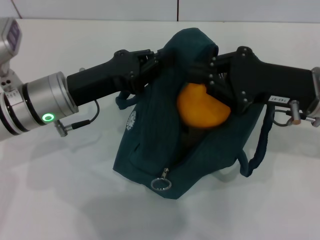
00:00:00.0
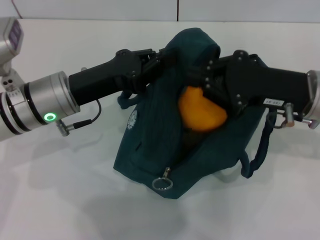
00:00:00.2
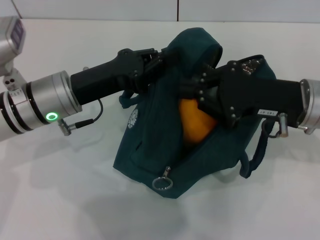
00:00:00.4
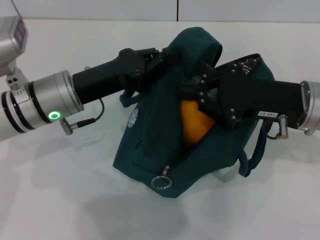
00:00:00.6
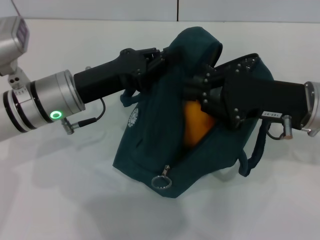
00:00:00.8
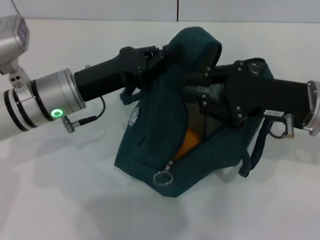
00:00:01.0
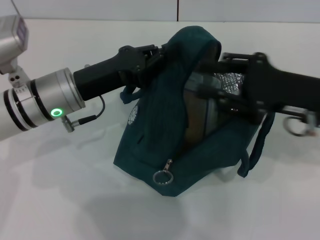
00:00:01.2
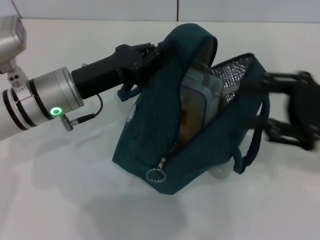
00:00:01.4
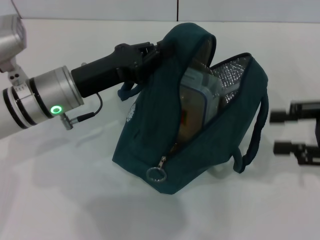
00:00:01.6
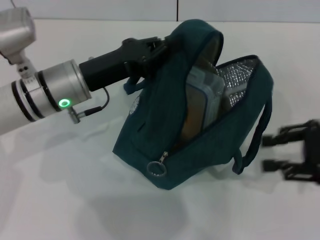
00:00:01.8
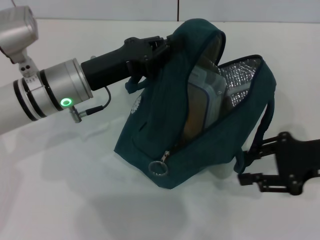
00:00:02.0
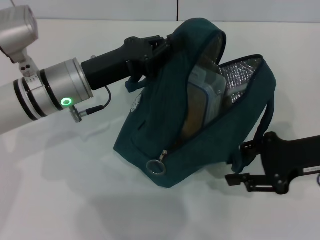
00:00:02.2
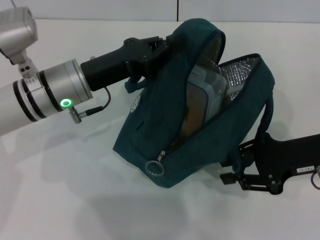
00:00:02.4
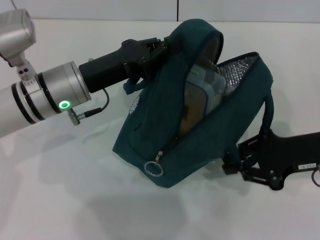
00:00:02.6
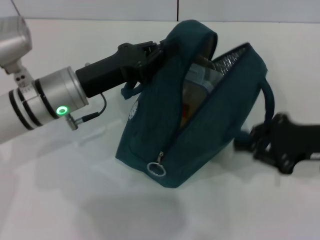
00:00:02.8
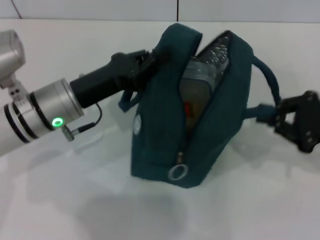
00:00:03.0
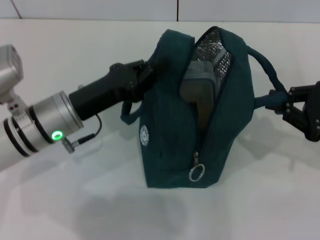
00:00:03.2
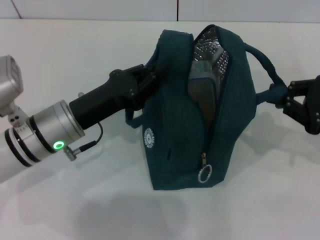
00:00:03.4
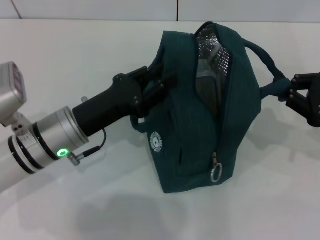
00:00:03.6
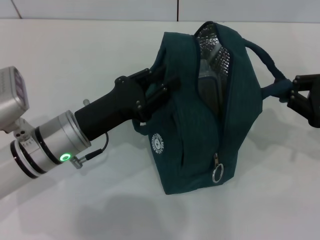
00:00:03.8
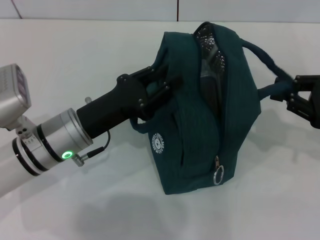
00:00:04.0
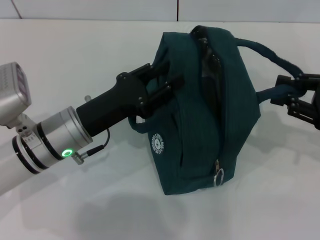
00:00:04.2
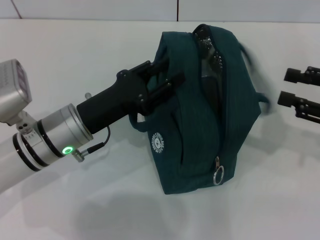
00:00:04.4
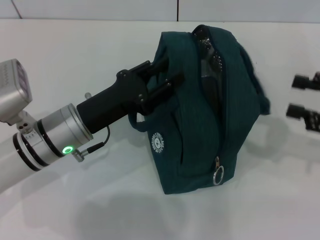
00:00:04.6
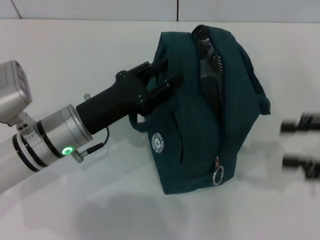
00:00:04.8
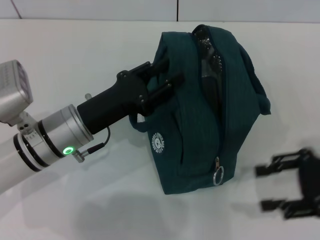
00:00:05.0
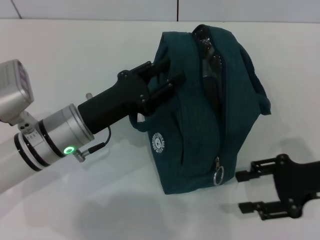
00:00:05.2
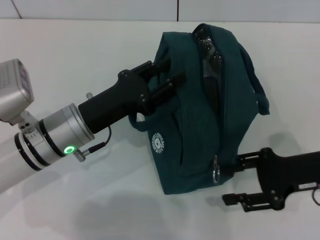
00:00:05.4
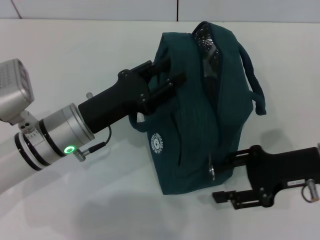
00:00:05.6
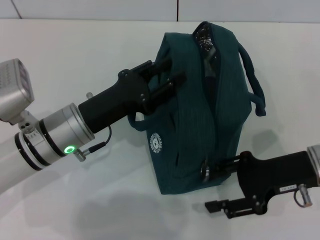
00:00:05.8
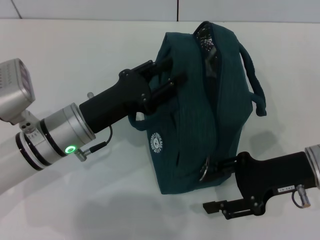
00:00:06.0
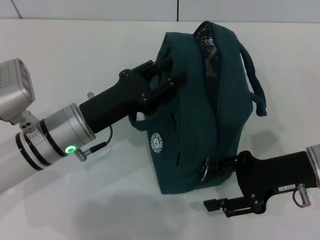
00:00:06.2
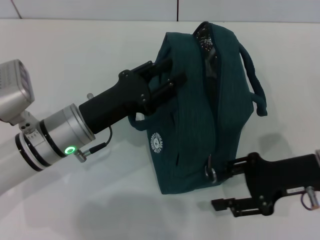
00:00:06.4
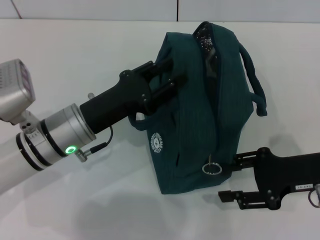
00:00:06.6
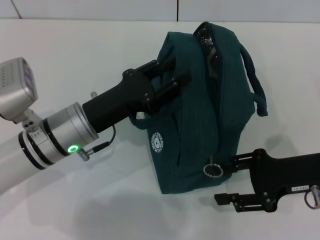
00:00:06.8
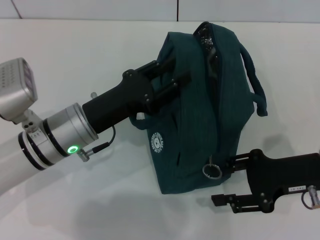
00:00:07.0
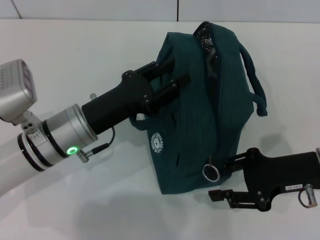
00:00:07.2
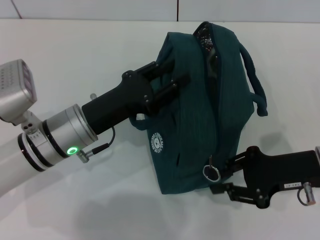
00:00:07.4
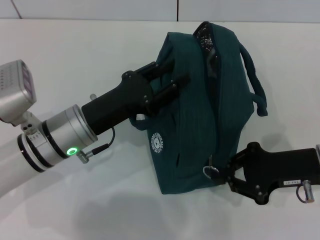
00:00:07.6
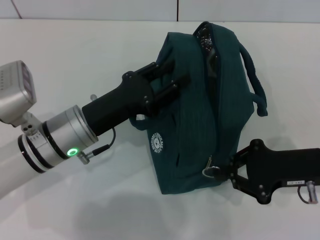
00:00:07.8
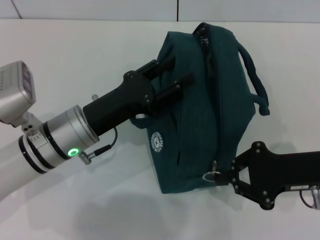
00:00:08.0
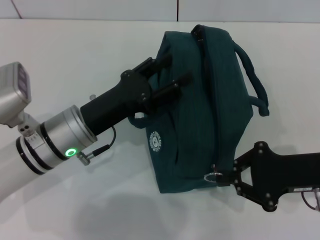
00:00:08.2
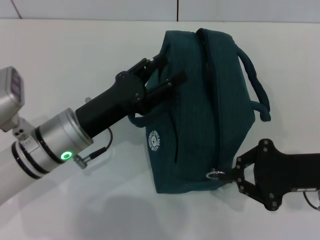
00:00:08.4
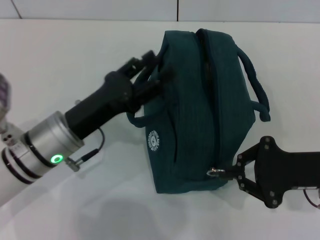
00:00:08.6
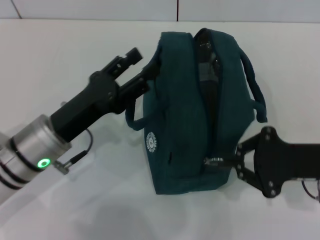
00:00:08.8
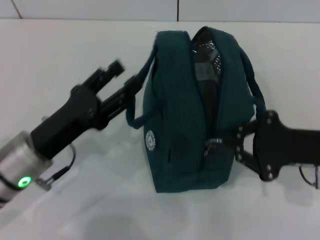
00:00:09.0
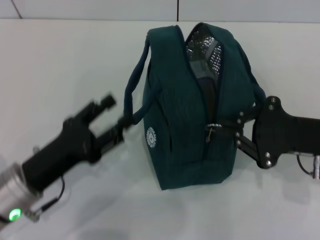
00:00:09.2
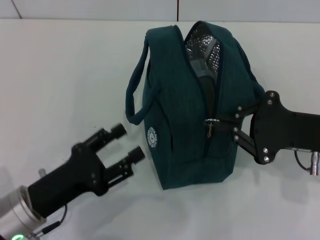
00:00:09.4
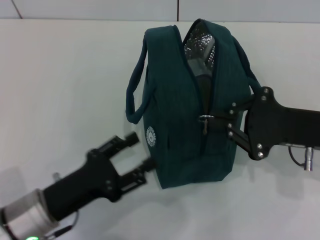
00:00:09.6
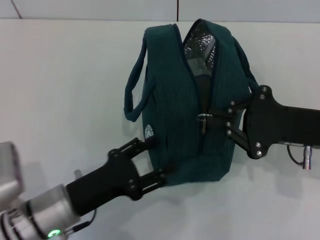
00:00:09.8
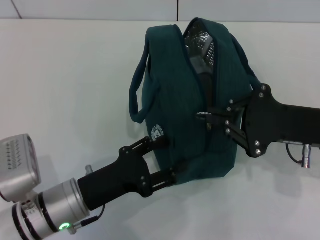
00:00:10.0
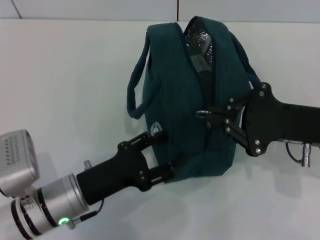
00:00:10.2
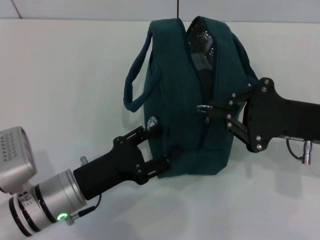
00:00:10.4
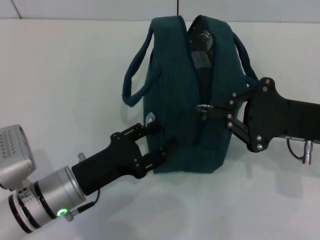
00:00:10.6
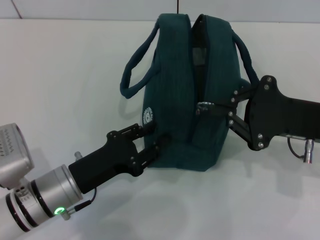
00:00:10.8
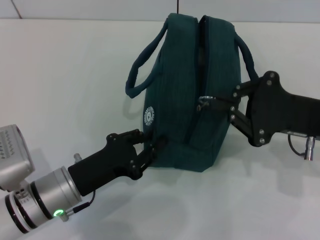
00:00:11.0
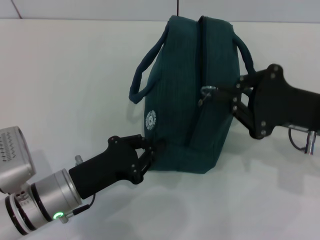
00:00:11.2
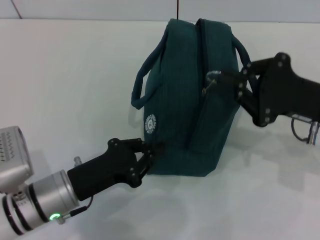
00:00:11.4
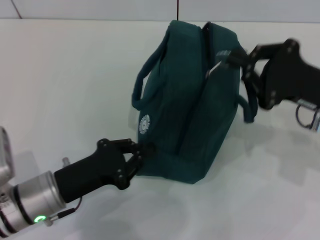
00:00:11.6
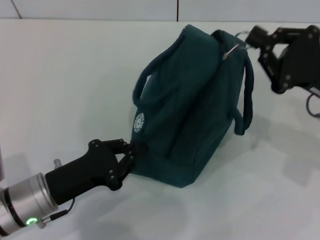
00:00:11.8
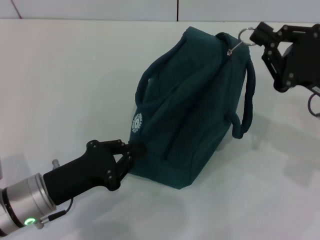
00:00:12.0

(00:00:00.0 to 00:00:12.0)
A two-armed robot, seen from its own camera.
Step, 00:00:01.4 - 00:00:04.2: Hold the lunch bag with your right hand.
00:00:00.0 - 00:00:01.6: The right gripper shifts some 10 cm to the right, and opens up.
00:00:01.6 - 00:00:03.0: The right gripper closes its fingers.
00:00:04.4 - 00:00:06.0: The right gripper shifts about 10 cm to the left.
00:00:06.0 - 00:00:07.6: The grippers stay close to where they were, moving slightly.
00:00:07.6 - 00:00:09.0: The left gripper changes place by roughly 5 cm. The right gripper closes.
00:00:09.0 - 00:00:10.4: The left gripper shifts by some 5 cm.
00:00:10.4 - 00:00:12.0: The left gripper closes its fingers.

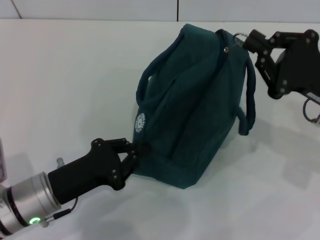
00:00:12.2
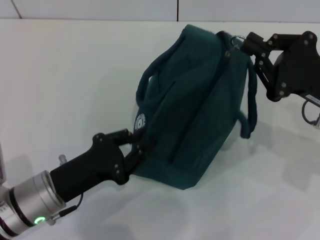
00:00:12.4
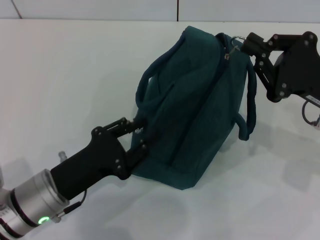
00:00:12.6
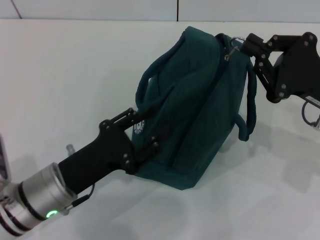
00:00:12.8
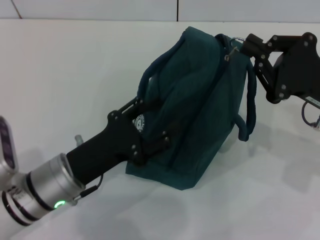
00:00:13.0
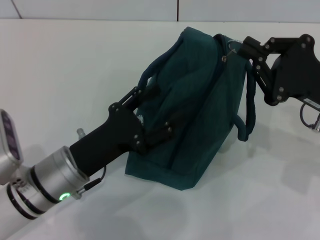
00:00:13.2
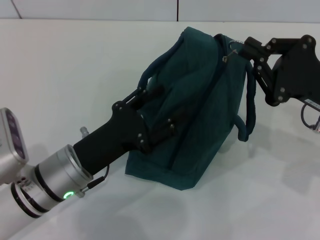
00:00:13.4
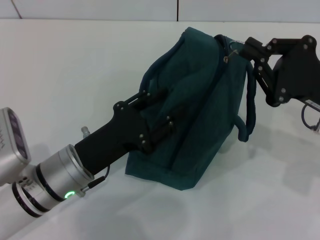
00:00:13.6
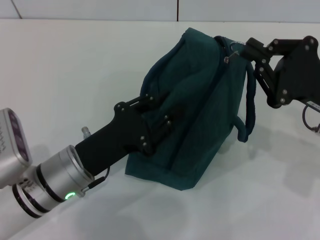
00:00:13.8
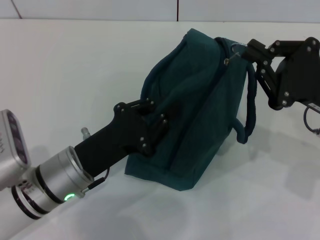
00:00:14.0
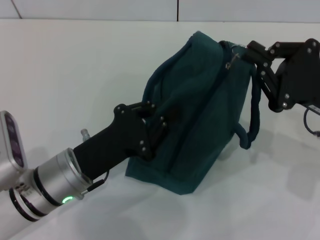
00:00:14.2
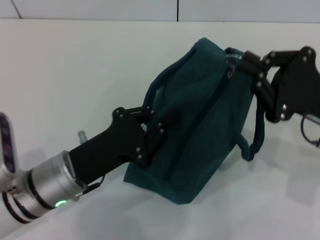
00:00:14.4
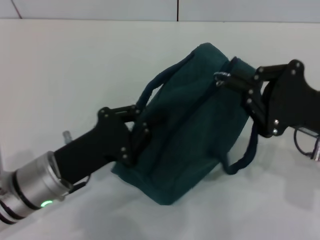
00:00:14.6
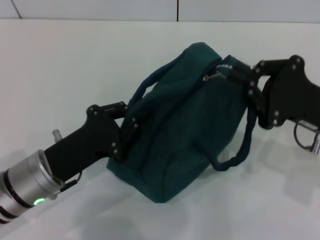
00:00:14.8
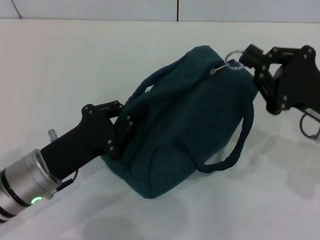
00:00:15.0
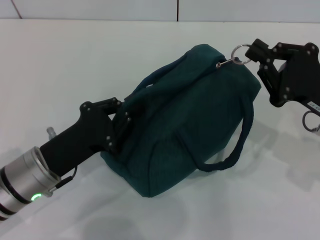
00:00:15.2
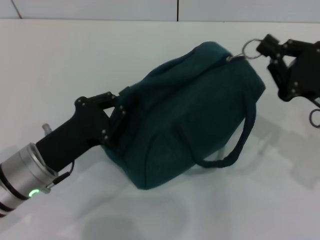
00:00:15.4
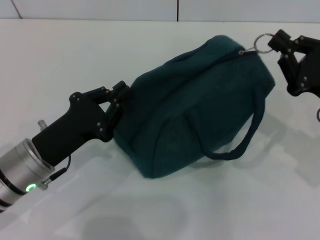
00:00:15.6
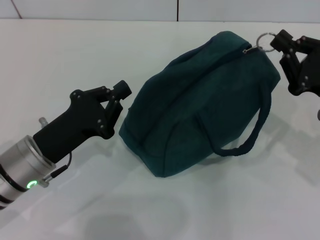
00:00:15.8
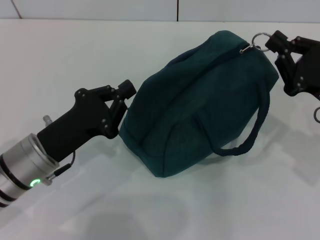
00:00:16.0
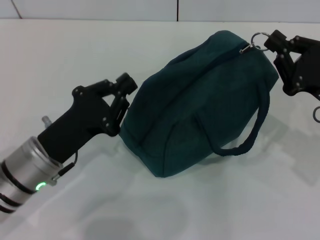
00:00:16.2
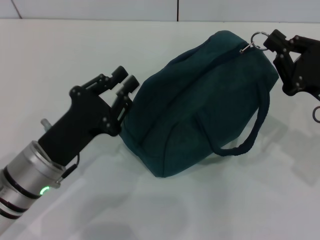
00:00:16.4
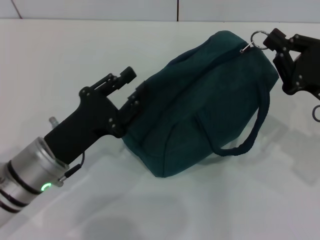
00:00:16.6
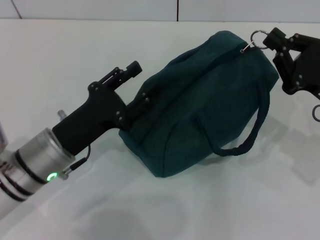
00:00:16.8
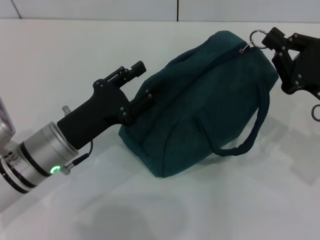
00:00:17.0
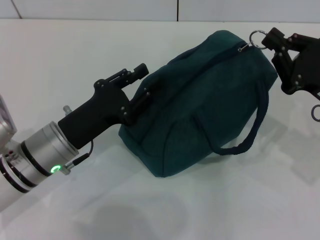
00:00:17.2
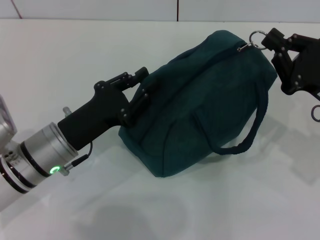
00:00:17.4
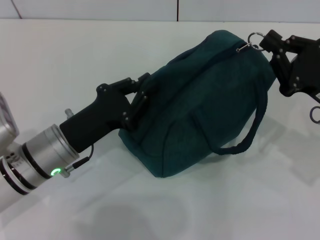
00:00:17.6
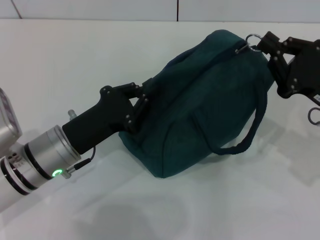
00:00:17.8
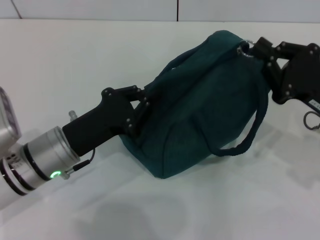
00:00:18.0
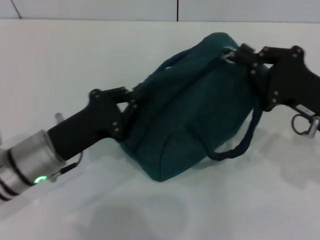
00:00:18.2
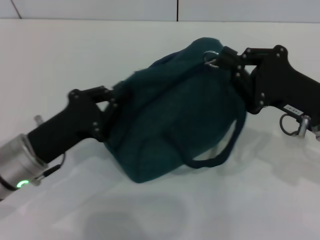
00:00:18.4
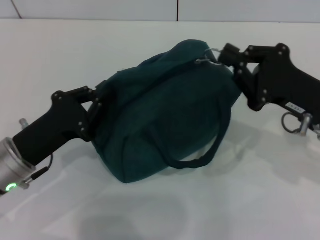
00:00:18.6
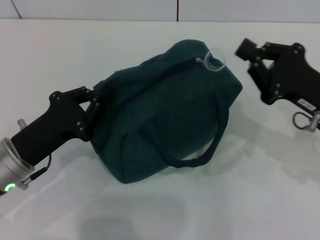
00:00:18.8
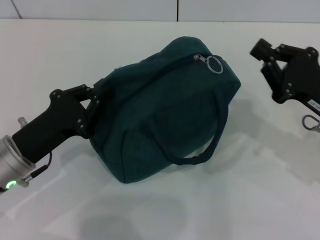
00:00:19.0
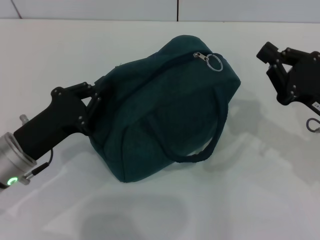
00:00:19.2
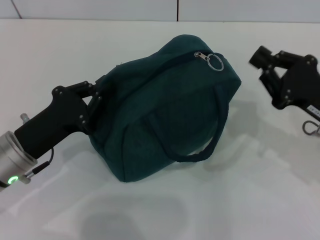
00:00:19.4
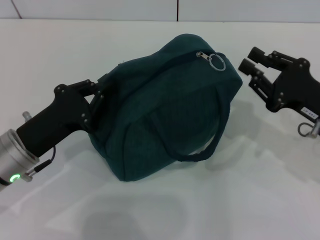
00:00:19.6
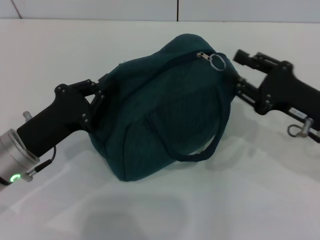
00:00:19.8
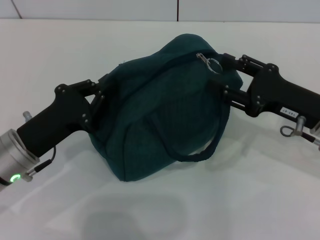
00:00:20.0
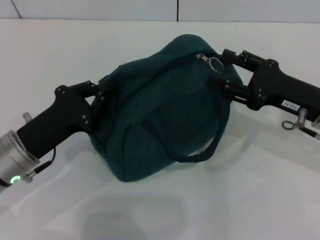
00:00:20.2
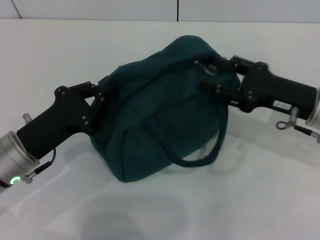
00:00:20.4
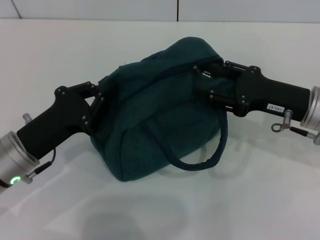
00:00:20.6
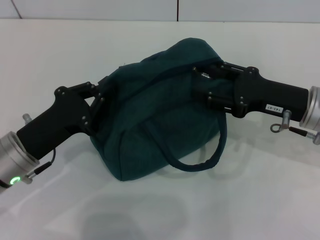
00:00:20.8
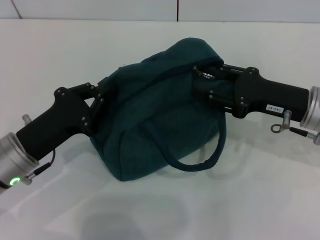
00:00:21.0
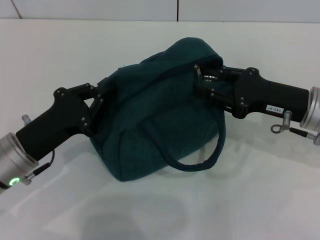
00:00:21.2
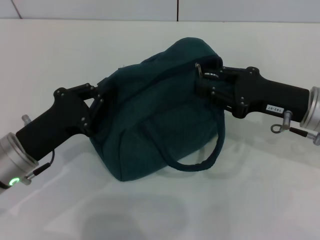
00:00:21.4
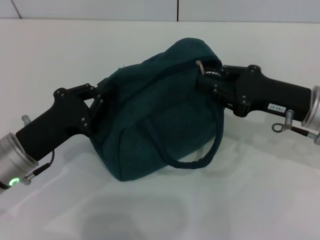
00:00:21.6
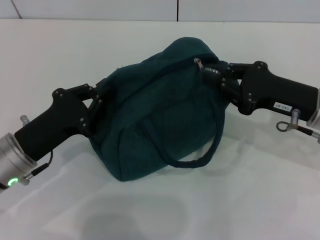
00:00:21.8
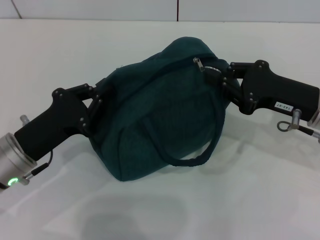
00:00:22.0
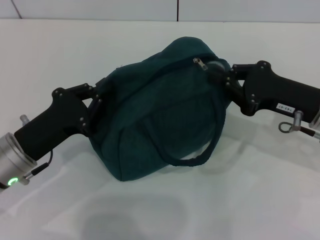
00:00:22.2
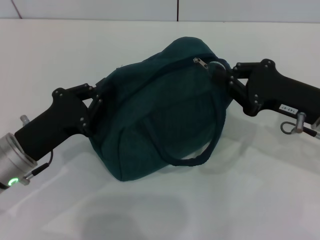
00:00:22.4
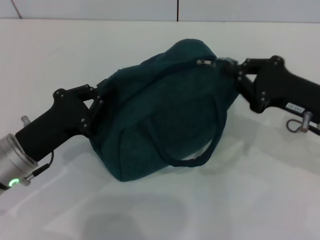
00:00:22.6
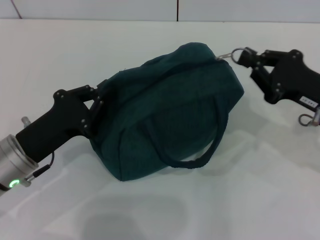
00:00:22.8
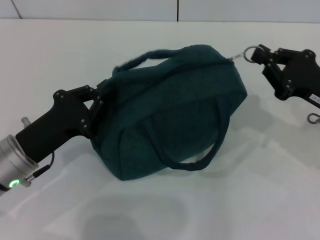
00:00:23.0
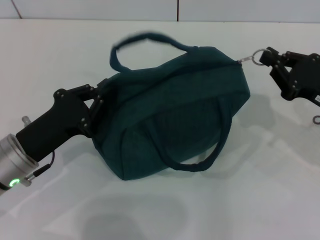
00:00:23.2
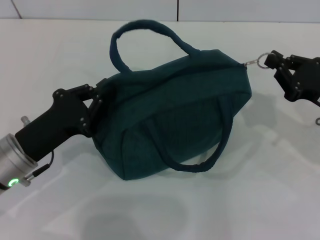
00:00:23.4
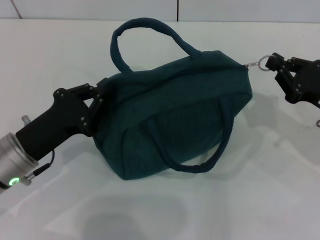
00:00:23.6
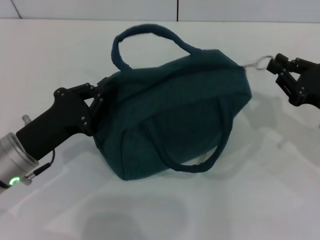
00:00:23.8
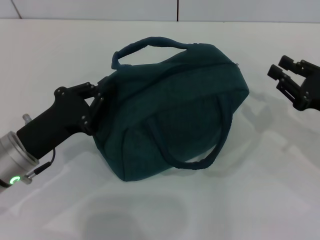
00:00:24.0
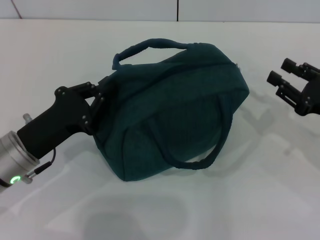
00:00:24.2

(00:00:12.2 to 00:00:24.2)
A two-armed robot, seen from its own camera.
00:00:12.2 - 00:00:13.8: The left gripper changes place by roughly 5 cm, and opens up.
00:00:13.8 - 00:00:15.2: The left gripper closes.
00:00:15.2 - 00:00:16.6: The grippers make only small movements.
00:00:16.6 - 00:00:18.2: The left gripper opens, then closes once more.
00:00:19.8 - 00:00:21.2: The grippers stay close to where they were, moving slightly.
00:00:21.2 - 00:00:22.6: The right gripper closes its fingers.
00:00:22.6 - 00:00:24.2: The right gripper travels to the right by about 5 cm.
